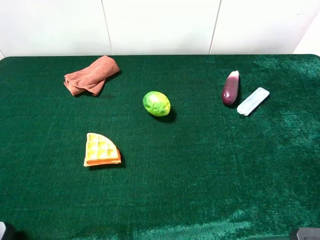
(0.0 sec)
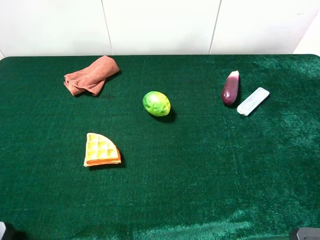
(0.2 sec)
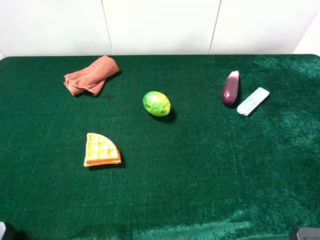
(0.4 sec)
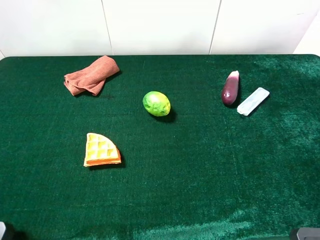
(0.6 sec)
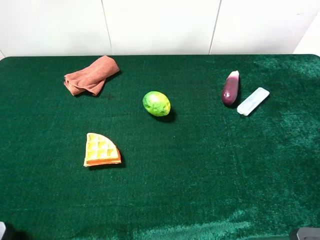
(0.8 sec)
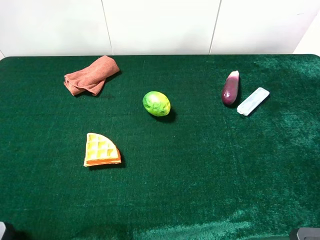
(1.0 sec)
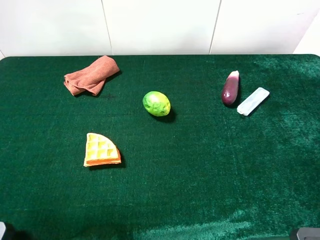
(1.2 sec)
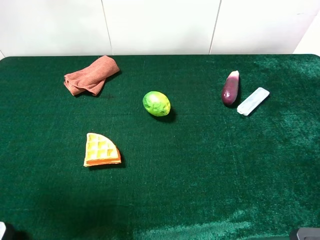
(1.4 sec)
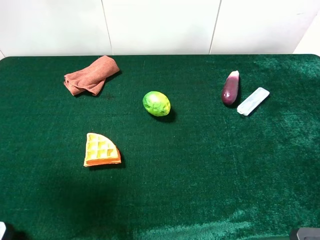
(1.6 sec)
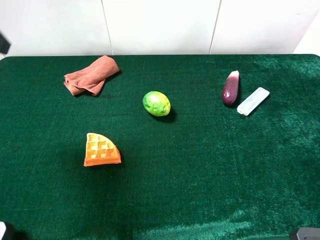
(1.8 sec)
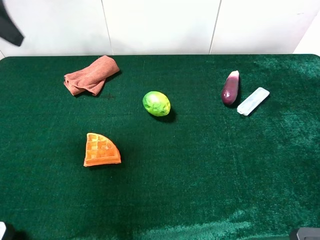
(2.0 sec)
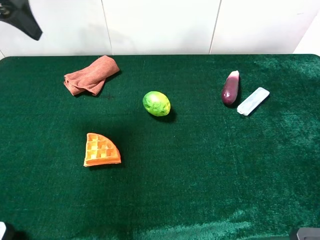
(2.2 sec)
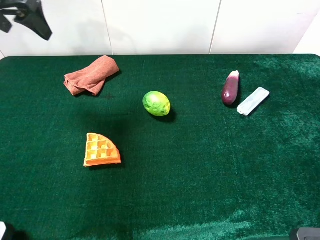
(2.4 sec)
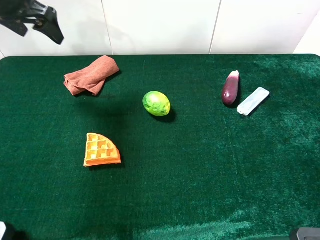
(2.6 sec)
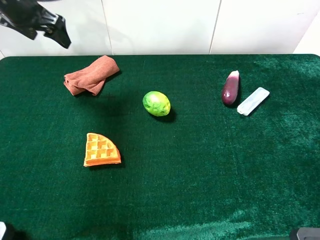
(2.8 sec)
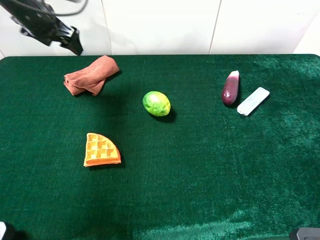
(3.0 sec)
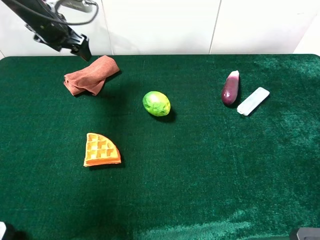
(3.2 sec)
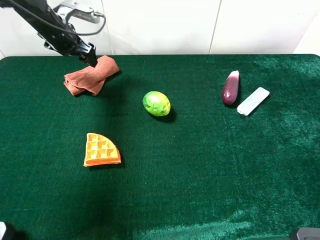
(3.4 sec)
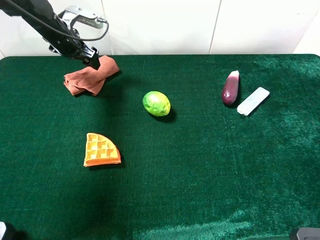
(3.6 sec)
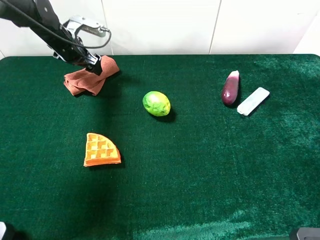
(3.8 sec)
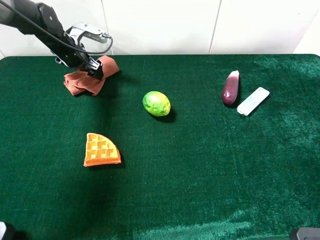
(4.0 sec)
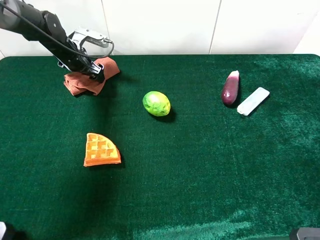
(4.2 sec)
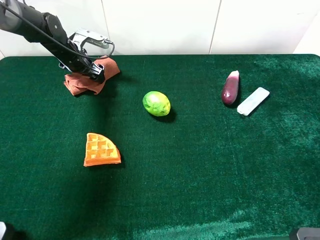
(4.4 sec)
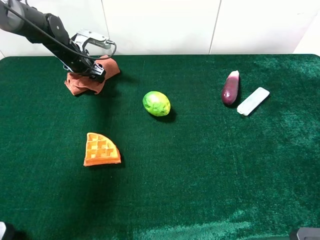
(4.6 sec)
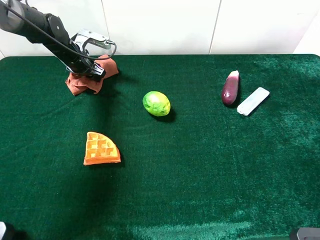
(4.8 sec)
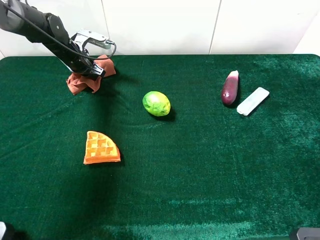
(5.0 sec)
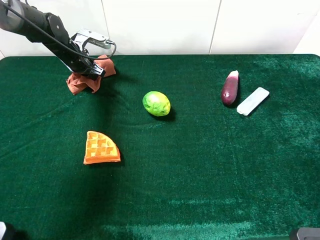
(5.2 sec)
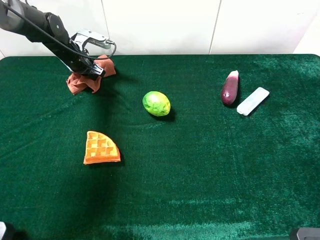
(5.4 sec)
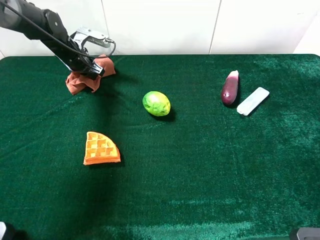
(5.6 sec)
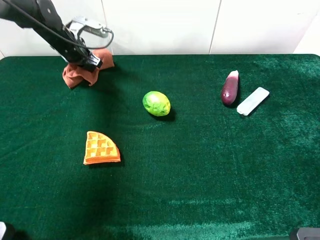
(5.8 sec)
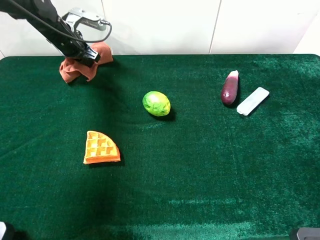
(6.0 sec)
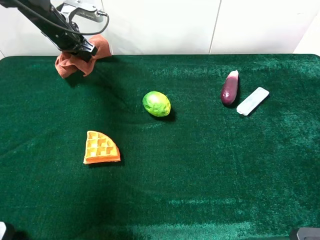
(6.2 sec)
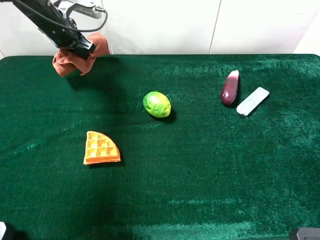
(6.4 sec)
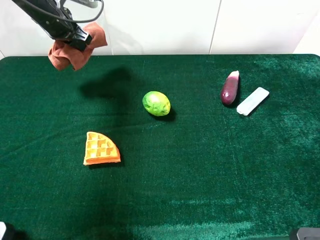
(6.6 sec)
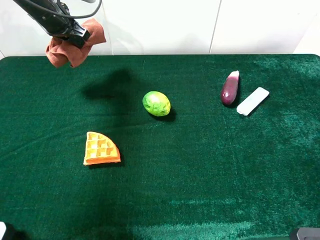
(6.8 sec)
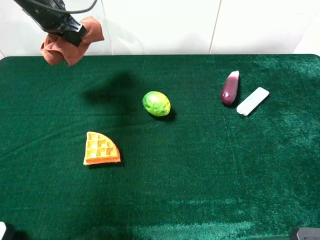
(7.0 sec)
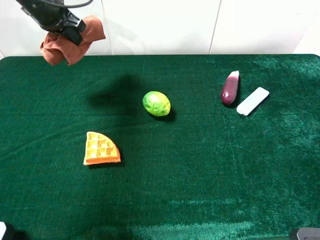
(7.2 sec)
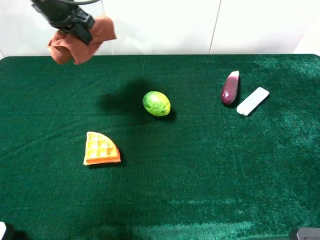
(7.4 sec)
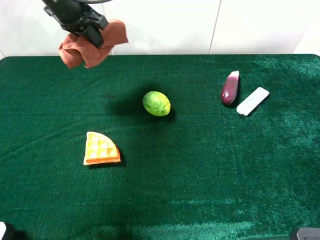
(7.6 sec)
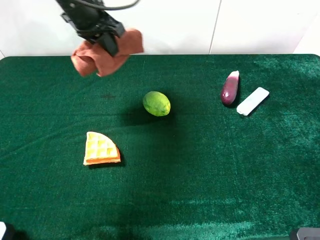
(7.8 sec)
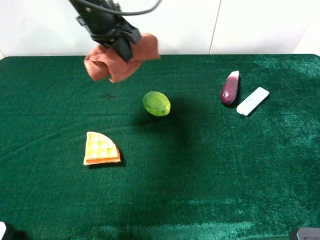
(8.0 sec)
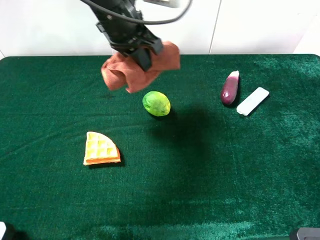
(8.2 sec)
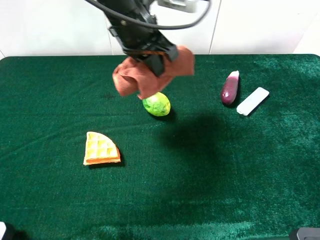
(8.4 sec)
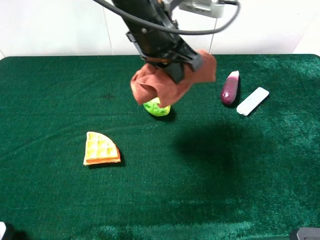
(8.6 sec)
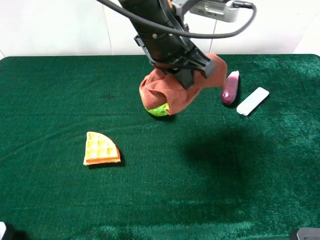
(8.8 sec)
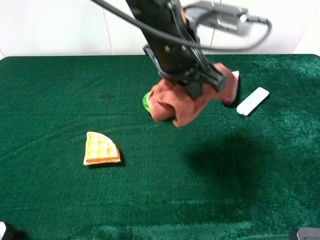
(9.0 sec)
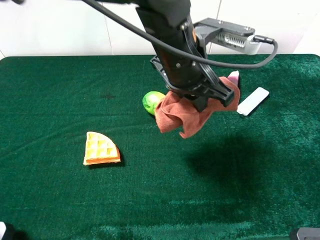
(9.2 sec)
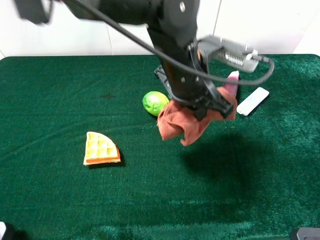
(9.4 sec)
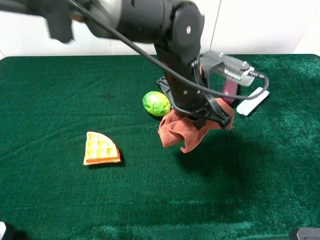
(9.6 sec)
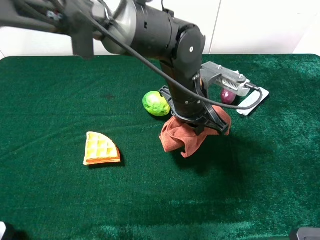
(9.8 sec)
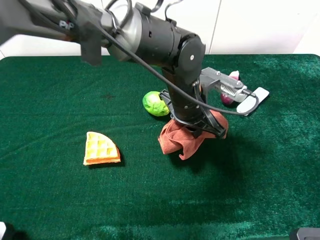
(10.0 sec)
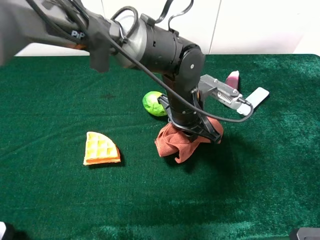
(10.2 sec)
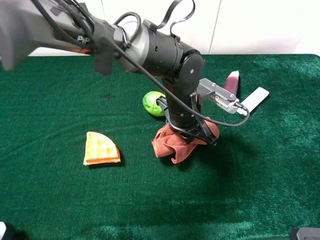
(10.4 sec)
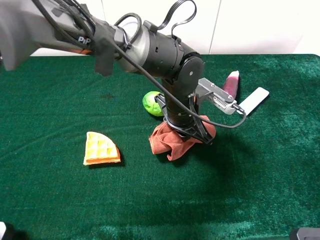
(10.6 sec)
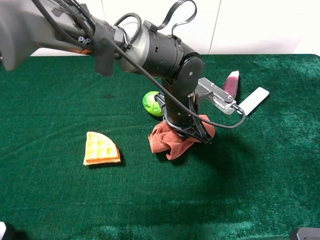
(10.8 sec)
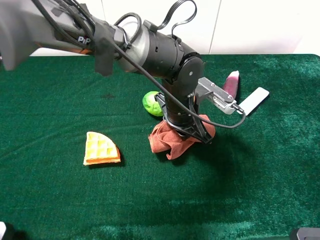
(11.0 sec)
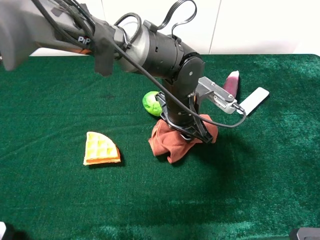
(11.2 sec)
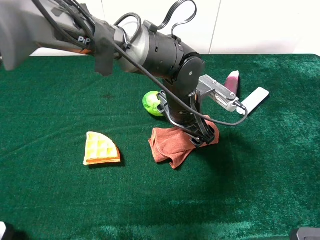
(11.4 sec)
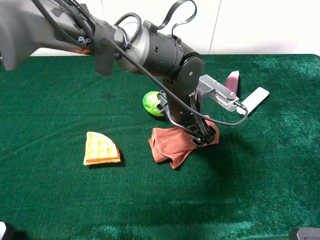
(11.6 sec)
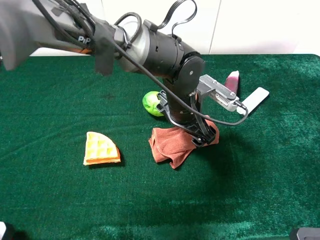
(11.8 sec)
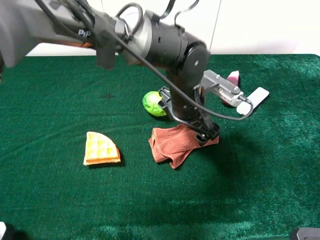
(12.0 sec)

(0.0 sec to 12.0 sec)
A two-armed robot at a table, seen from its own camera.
Task of the whole recording: the gripper move the object.
Step, 0.0 sec - 5.2 sec: Grasp the brown towel with the left gripper.
0.0 sec - 1.6 sec: The left gripper travels forward by approximately 20 cm.
1.6 sec - 3.0 sec: The left gripper shifts about 25 cm forward and downward.
3.0 sec - 4.4 sec: The left gripper travels downward by about 10 cm.
4.4 sec - 6.0 sec: The left gripper shifts about 5 cm upward, and closes its fingers.
6.0 sec - 7.6 sec: The left gripper goes roughly 15 cm upward, to the right and backward.
7.6 sec - 9.0 sec: The left gripper moves to the right and backward, roughly 25 cm.
9.0 sec - 10.4 sec: The left gripper travels downward by roughly 15 cm.
10.4 sec - 12.0 sec: The left gripper opens its fingers.

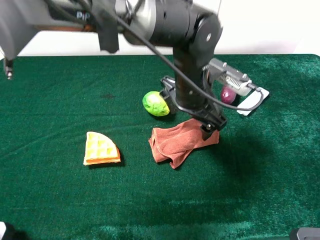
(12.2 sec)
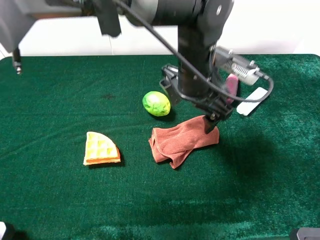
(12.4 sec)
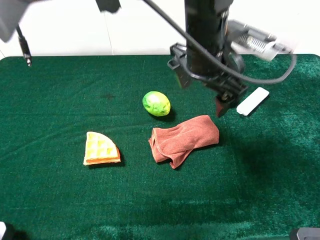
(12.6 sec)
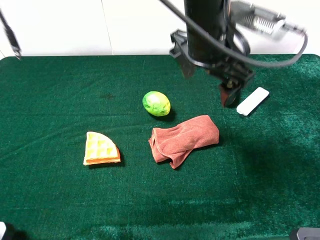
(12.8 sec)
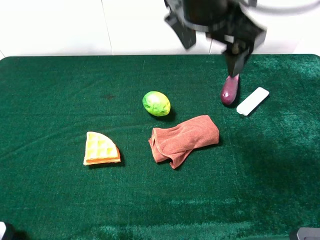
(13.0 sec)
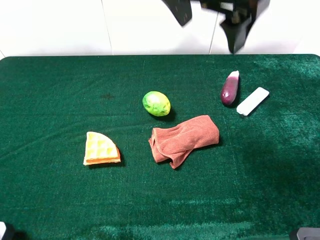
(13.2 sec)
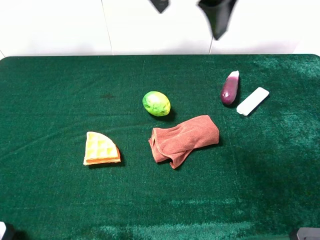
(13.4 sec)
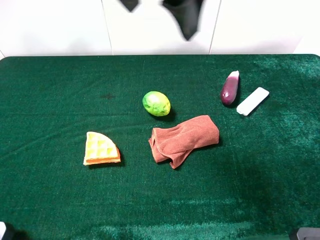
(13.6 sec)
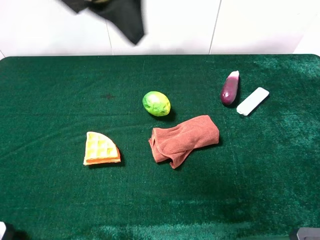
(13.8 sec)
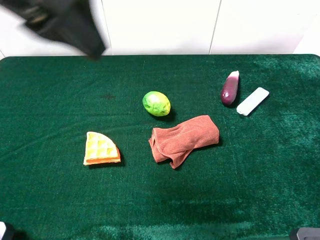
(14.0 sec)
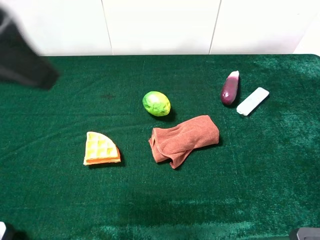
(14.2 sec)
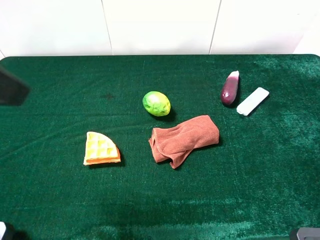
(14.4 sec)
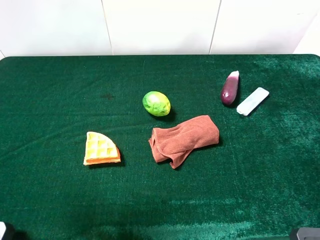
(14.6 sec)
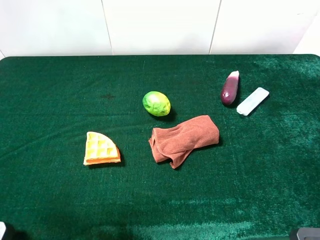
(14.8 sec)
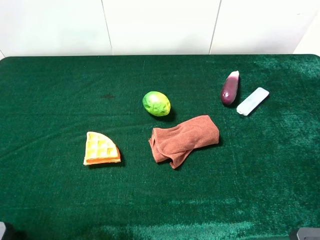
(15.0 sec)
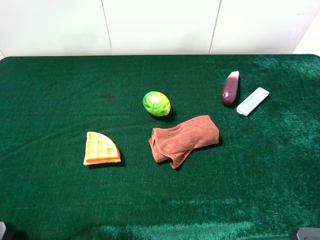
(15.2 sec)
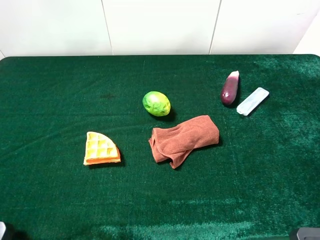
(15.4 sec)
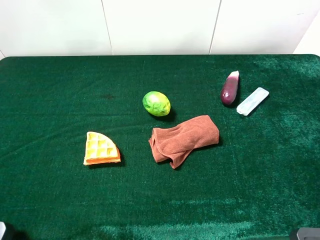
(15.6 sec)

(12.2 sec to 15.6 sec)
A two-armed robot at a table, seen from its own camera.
Task of the whole recording: the gripper move the object.
12.2 sec - 13.8 sec: The left gripper goes some 30 cm upward, to the left and backward.
13.8 sec - 15.6 sec: The left gripper heads to the left, backward and downward, covering some 30 cm.
